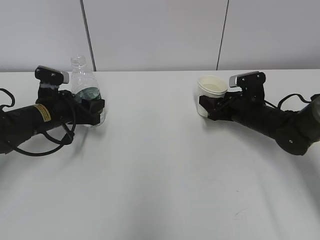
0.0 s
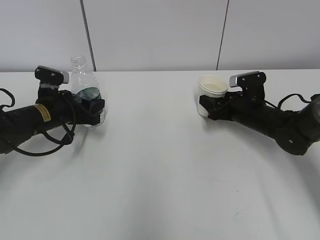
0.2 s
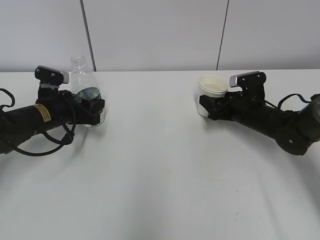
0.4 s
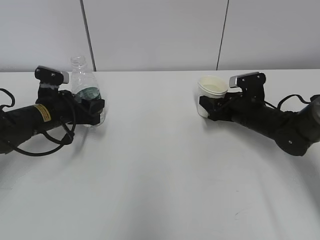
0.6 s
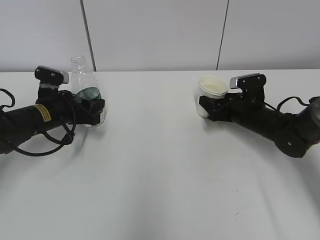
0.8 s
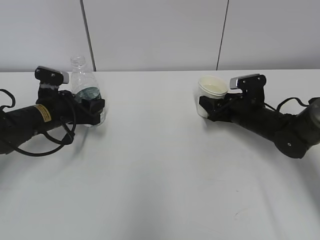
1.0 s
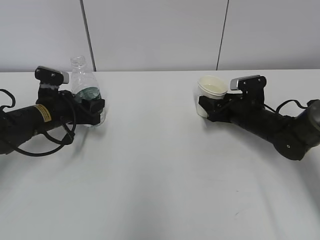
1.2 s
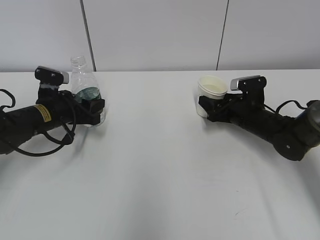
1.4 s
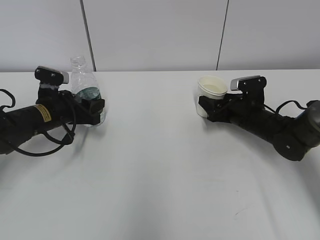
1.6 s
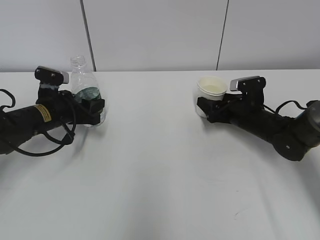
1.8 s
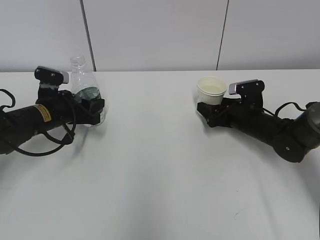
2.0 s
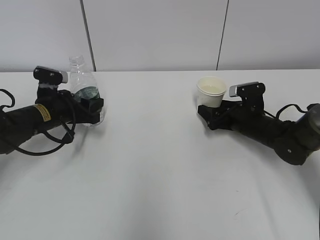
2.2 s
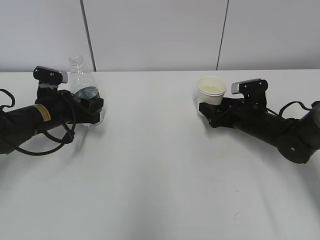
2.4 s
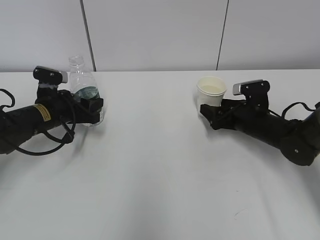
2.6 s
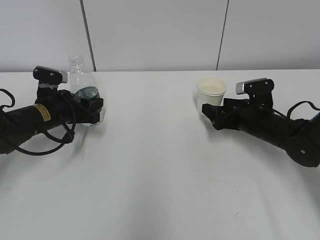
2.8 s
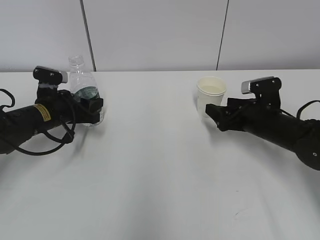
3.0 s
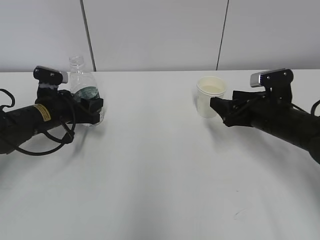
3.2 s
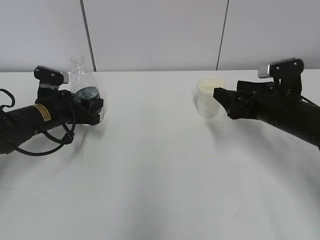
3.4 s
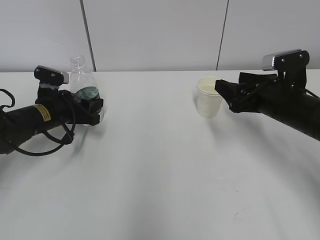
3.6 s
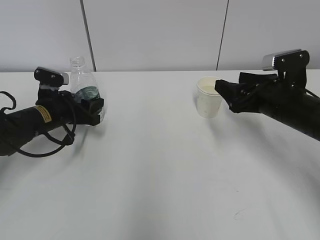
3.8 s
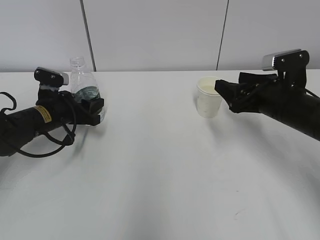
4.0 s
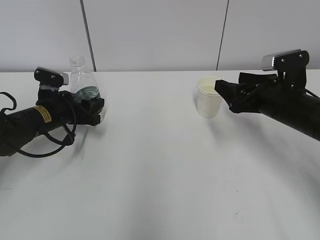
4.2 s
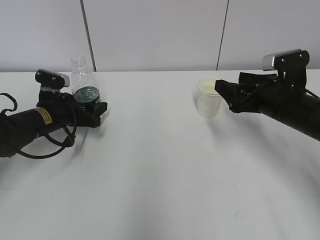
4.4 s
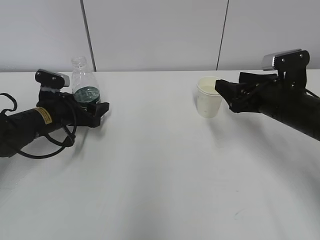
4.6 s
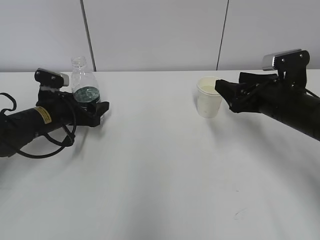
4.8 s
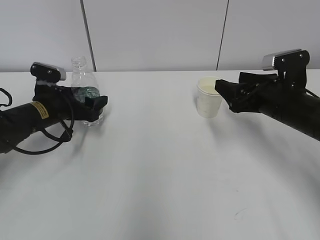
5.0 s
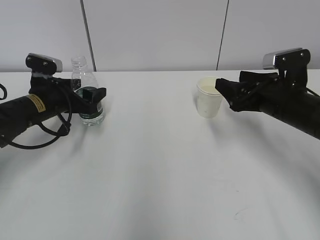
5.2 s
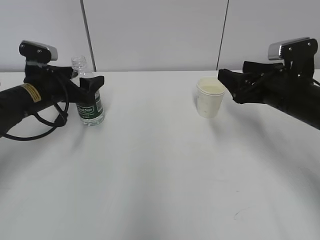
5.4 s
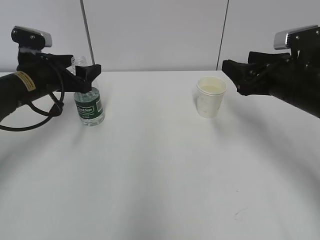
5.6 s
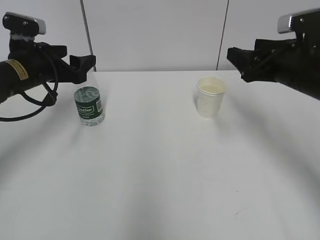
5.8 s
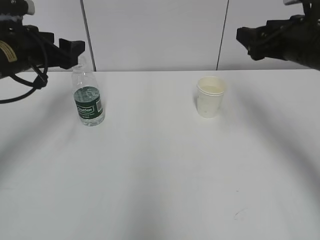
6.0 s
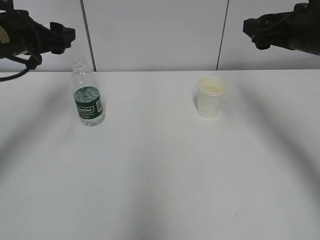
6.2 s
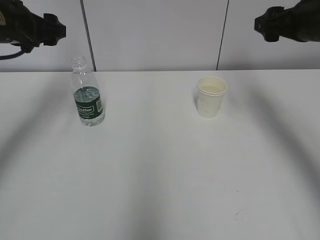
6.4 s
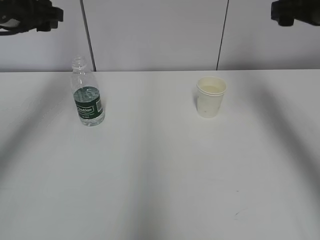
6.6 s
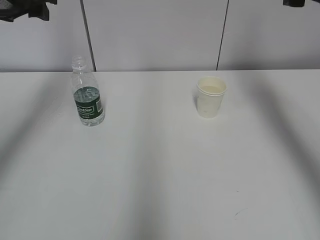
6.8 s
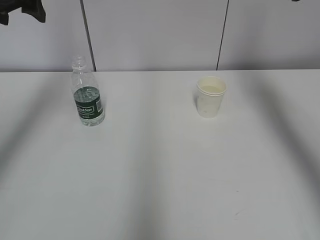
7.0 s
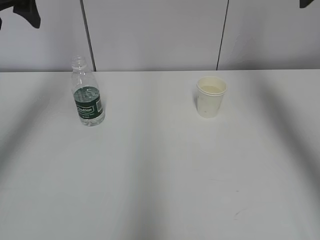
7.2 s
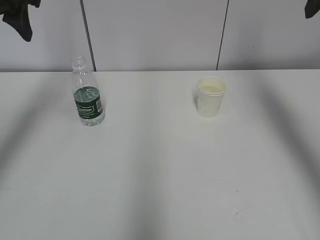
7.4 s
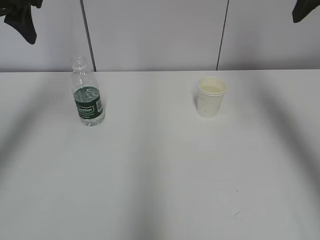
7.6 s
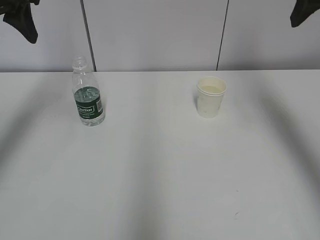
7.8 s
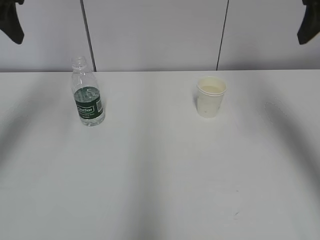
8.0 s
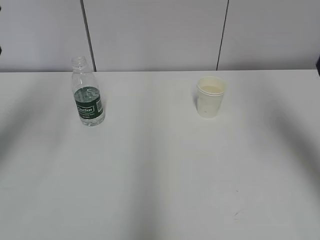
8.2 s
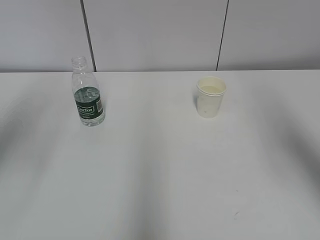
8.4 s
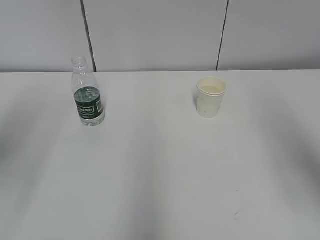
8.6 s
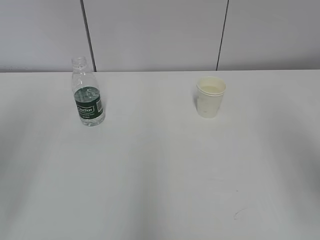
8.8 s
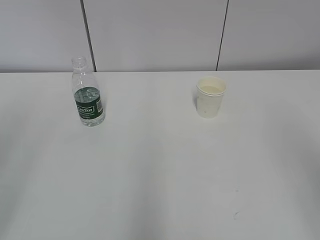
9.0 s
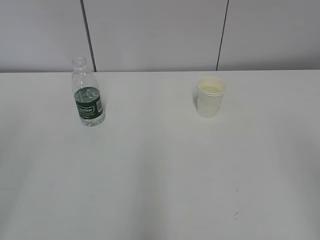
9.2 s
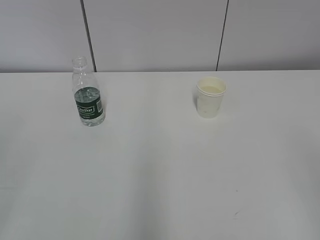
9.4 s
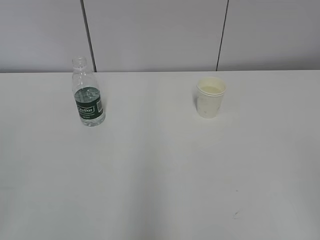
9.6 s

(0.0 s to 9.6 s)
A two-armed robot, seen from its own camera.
0.0 s - 1.6 s: Both grippers stay put.
1.6 s - 3.2 s: The right gripper shifts some 10 cm backward and upward, and opens.
3.2 s - 4.8 s: The left gripper opens its fingers.
4.8 s - 6.4 s: Both grippers move upward, some 15 cm.
6.4 s - 8.0 s: The two grippers go some 10 cm upward and backward.
8.0 s - 9.6 s: Both grippers travel together backward, about 30 cm.

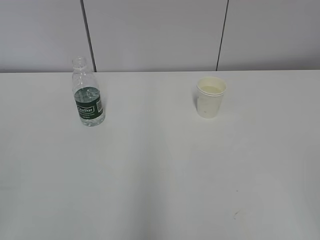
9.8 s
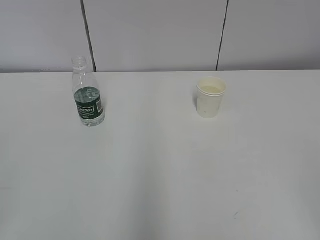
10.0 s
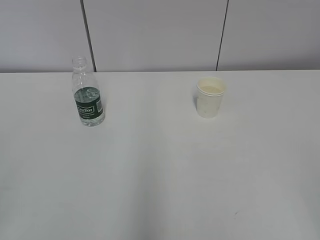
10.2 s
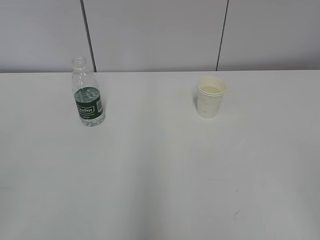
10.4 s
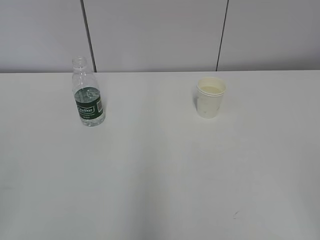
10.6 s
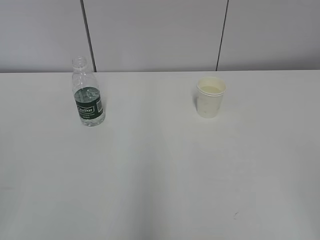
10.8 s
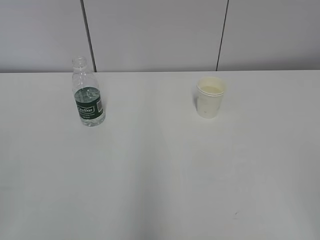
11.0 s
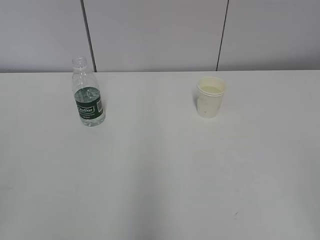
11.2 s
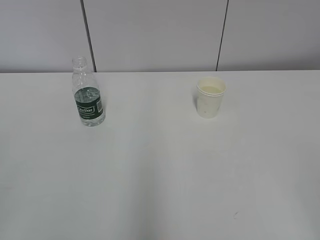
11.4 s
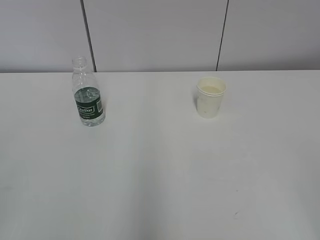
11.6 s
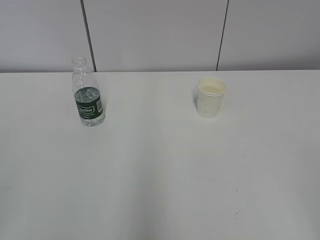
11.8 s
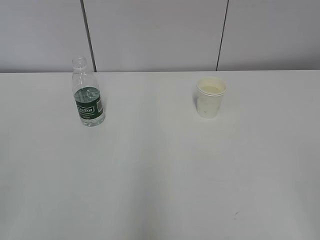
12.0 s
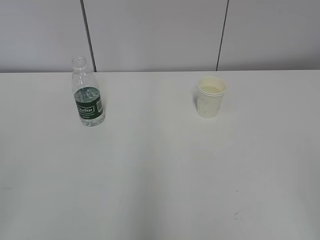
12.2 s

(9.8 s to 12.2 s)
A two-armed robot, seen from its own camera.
11.0 s - 12.2 s: Neither gripper changes place.
